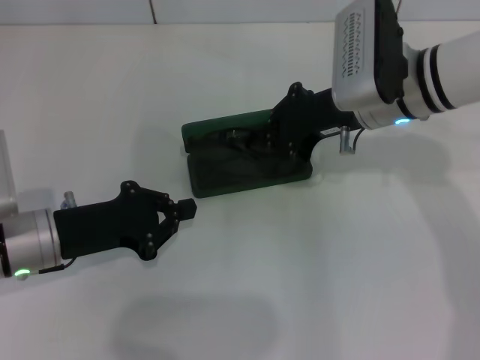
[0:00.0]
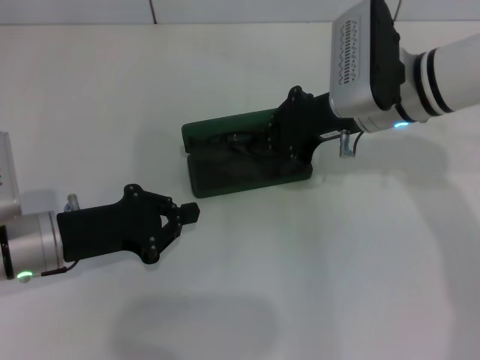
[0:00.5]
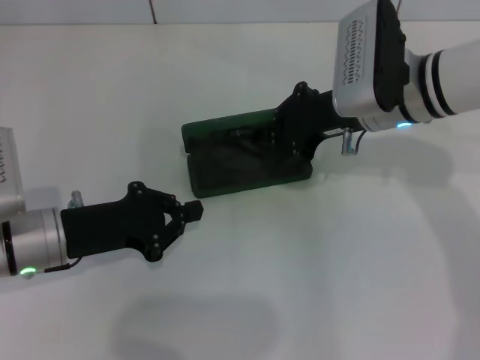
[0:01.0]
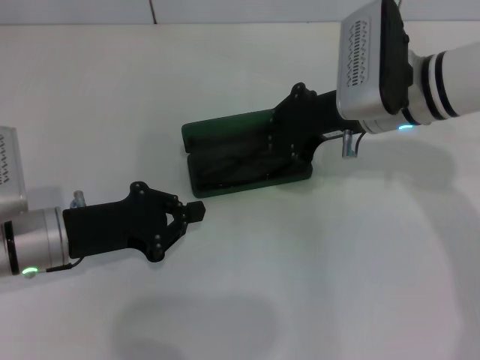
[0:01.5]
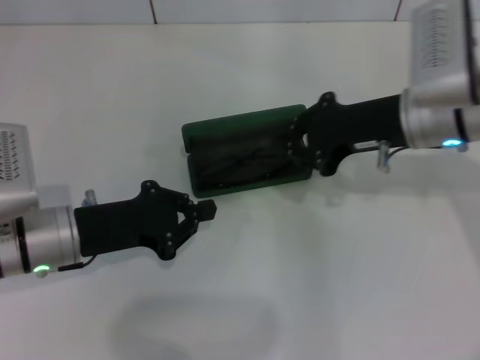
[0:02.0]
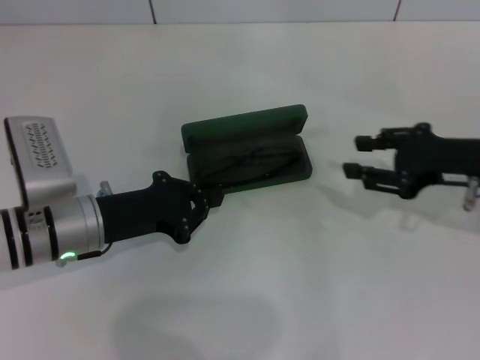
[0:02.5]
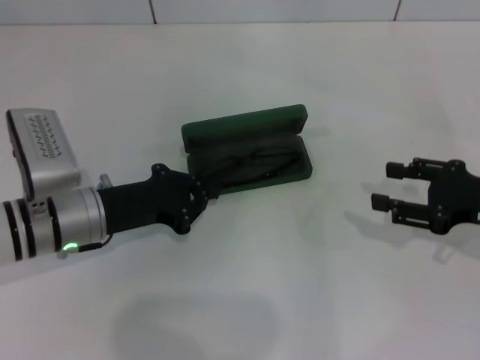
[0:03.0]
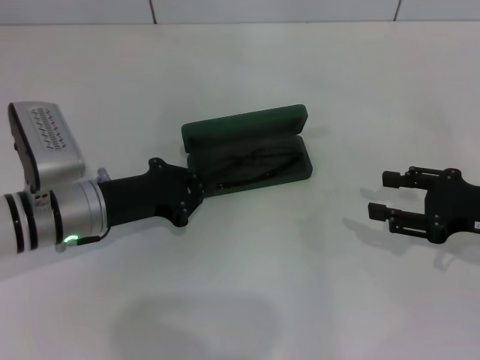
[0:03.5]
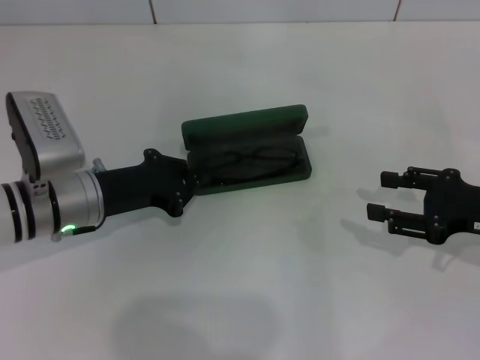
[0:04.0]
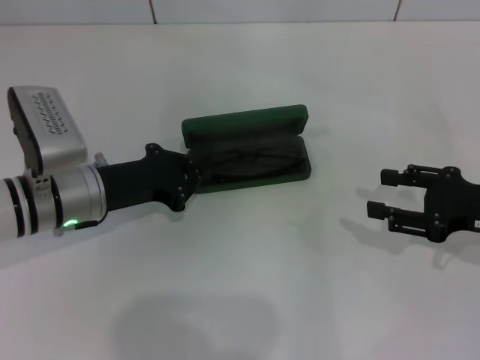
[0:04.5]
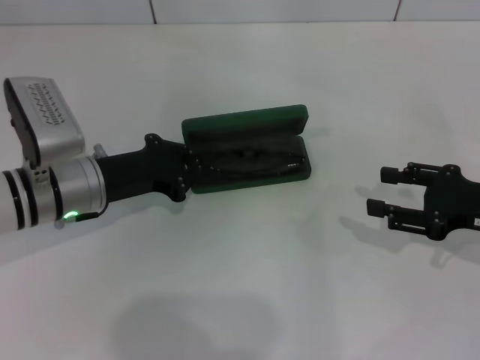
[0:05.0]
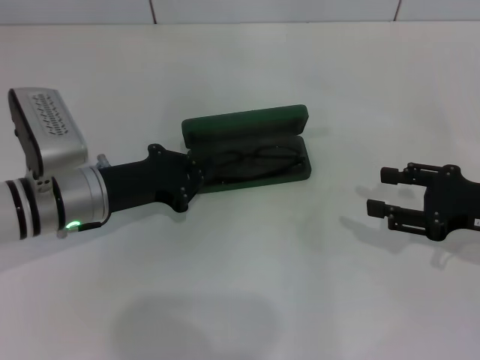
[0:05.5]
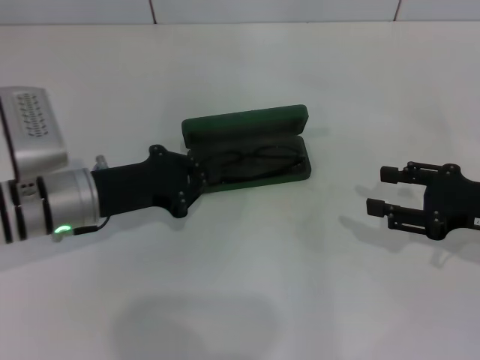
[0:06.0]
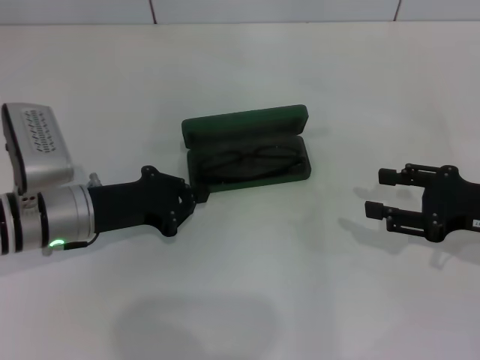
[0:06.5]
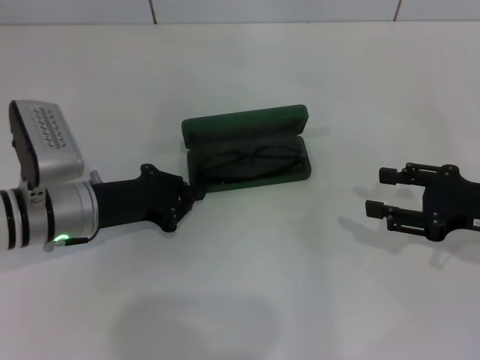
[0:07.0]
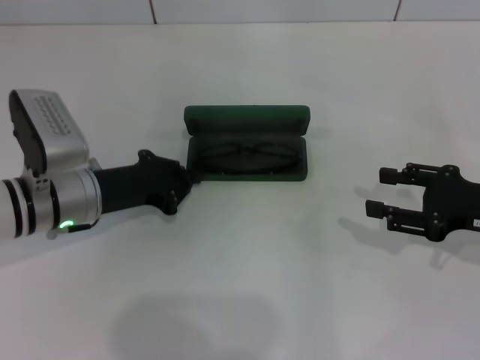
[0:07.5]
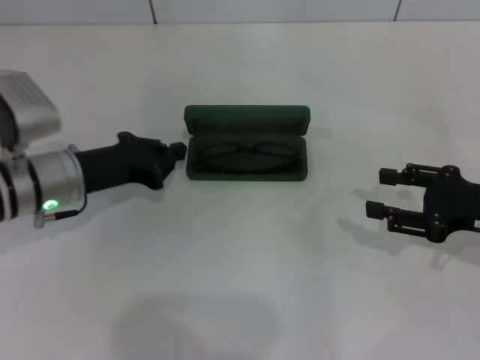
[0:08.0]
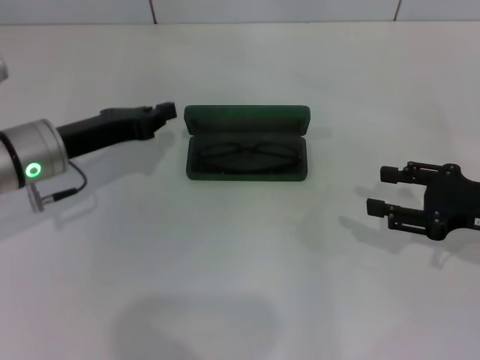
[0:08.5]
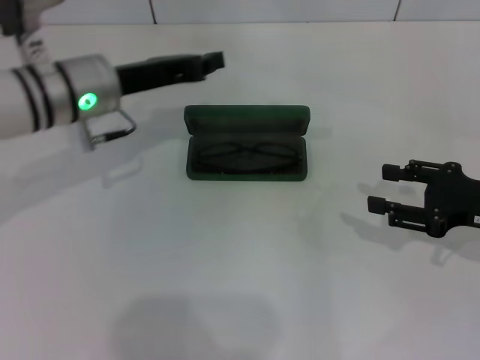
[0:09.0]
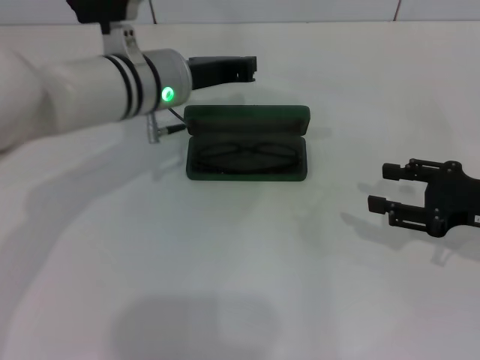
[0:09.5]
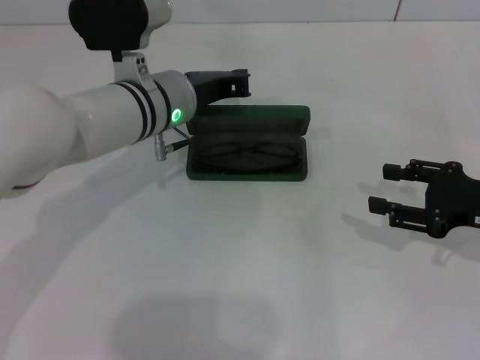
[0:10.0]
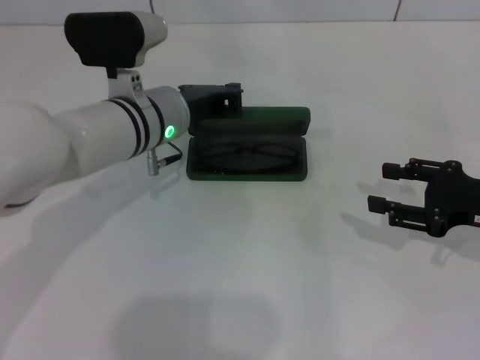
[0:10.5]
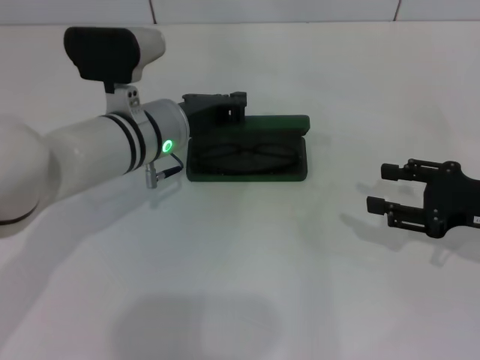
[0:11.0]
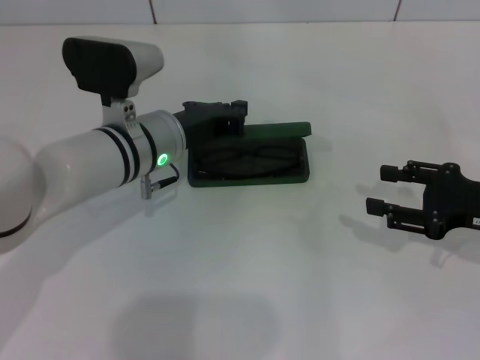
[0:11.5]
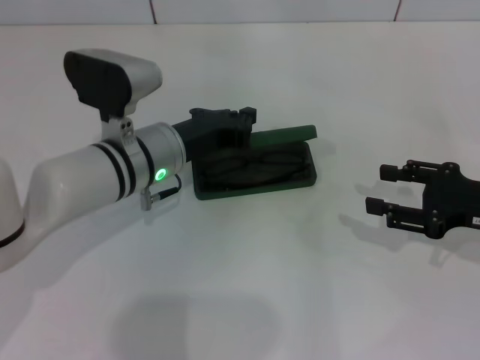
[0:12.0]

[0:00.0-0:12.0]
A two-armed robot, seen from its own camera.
0:00.0 to 0:02.0: The right gripper ends up roughly 5 cm from where it was.
0:02.0 to 0:04.0: The right gripper shifts about 15 cm to the right, backward and downward, and opens up.
0:04.0 to 0:08.0: There are only small adjustments of the grippers.
0:08.0 to 0:10.0: The left gripper goes roughly 15 cm to the right and forward.
0:10.0 to 0:12.0: The left gripper ends up approximately 5 cm from where it was.

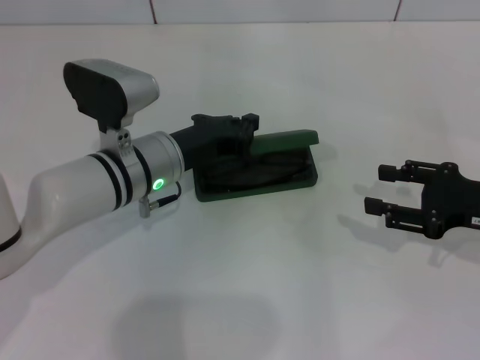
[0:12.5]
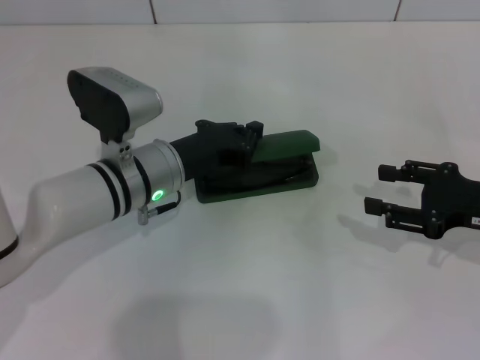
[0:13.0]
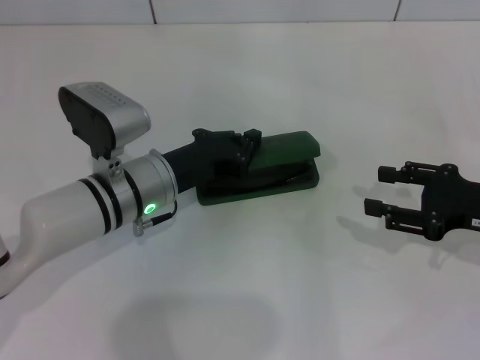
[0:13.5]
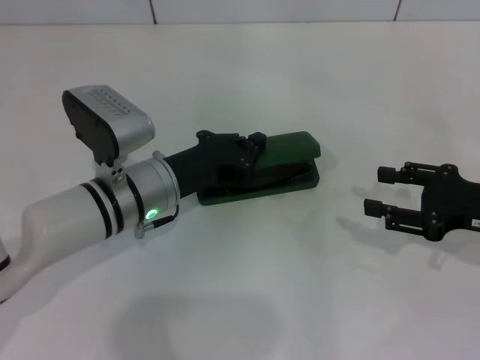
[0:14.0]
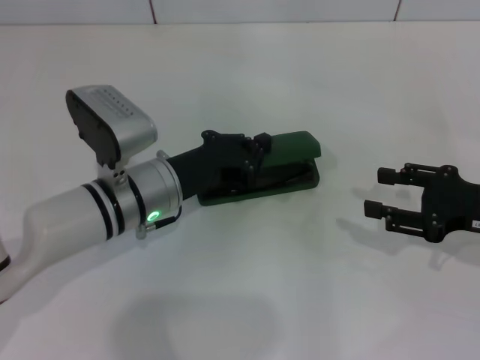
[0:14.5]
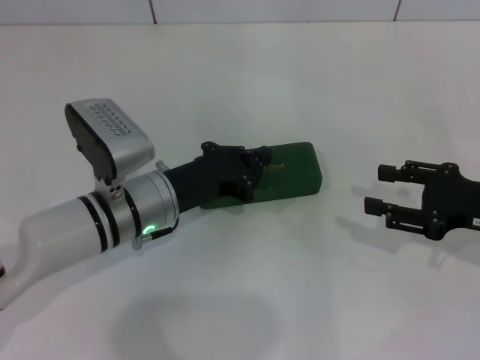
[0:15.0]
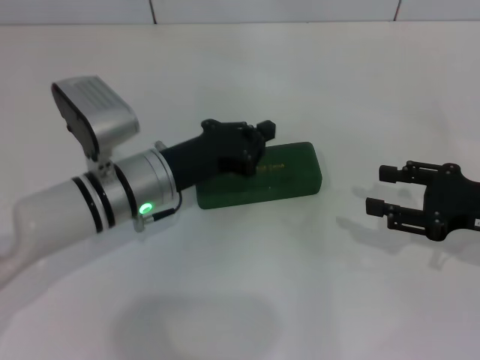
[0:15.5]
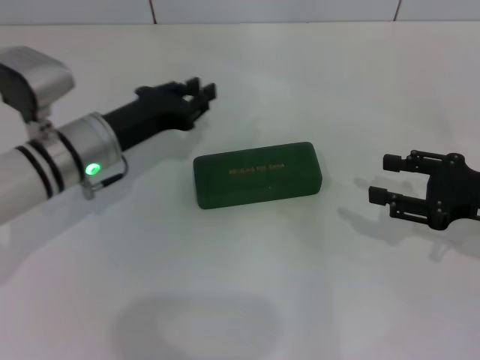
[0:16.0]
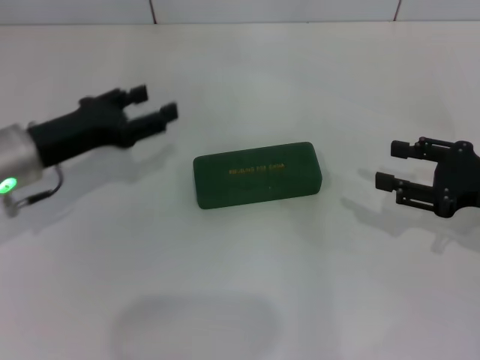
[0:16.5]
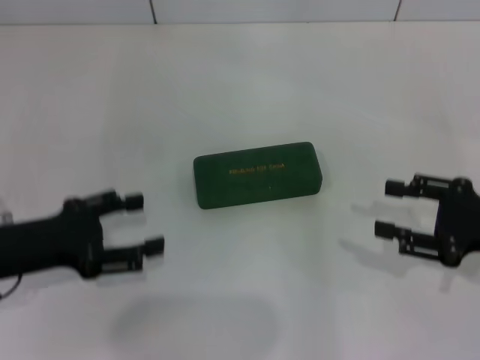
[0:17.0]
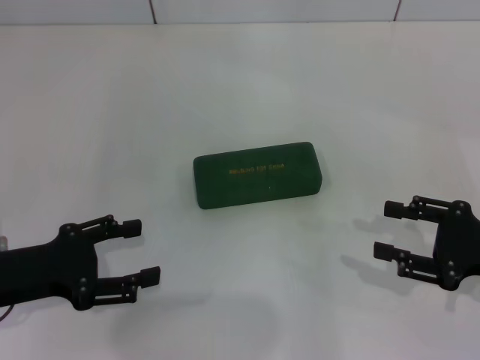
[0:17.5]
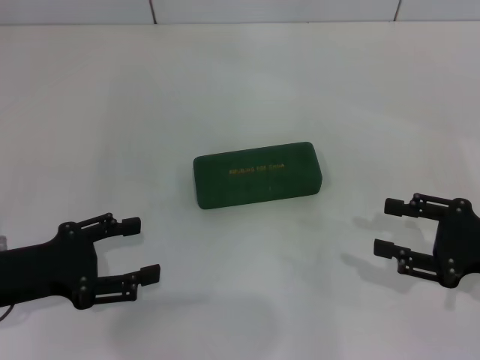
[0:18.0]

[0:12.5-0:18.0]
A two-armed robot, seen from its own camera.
Step, 0:12.5 to 0:15.0: Close the glasses case with your left hand.
0:12.5 to 0:14.5: There are only small adjustments of the grippers.
0:14.5 to 0:16.0: The left gripper goes about 5 cm to the left.
0:16.0 to 0:18.0: The left gripper travels backward and to the left by roughly 15 cm, and opens.

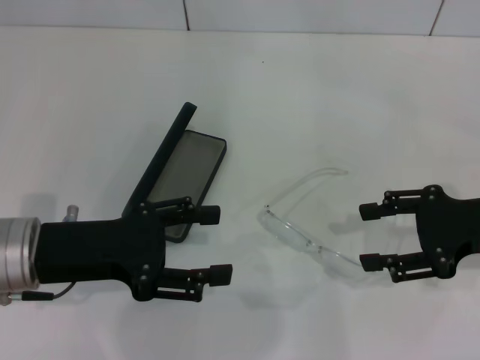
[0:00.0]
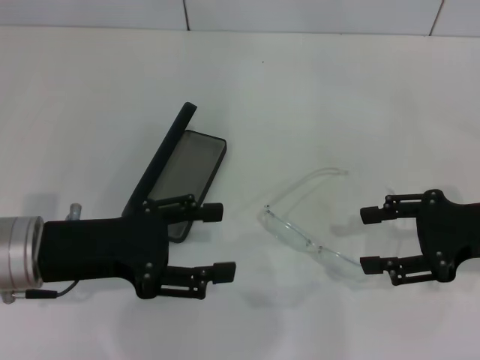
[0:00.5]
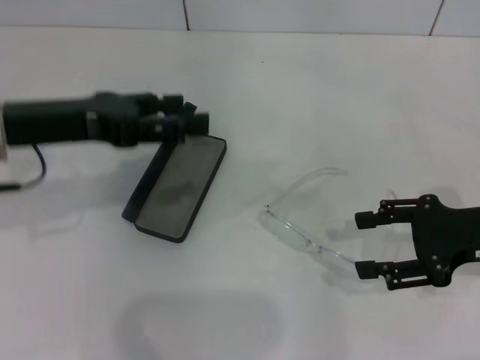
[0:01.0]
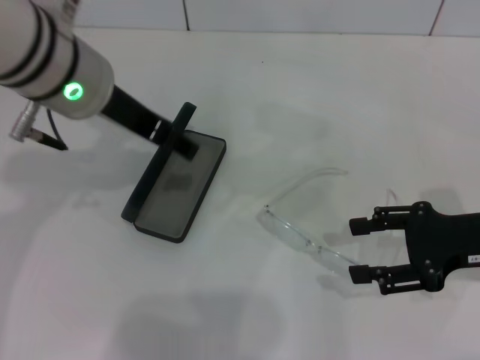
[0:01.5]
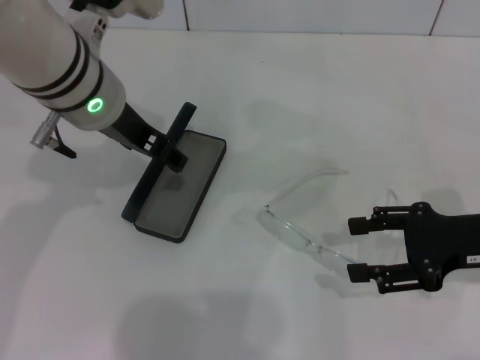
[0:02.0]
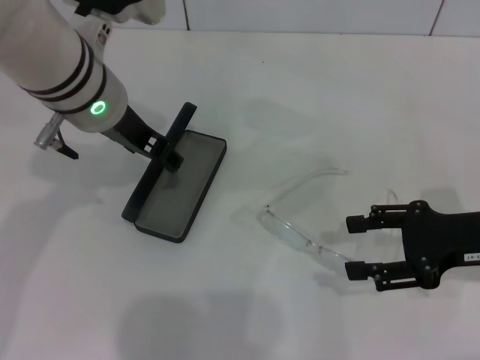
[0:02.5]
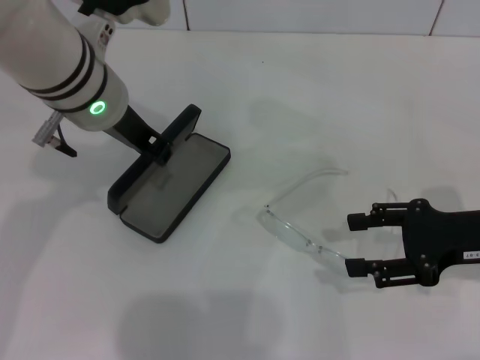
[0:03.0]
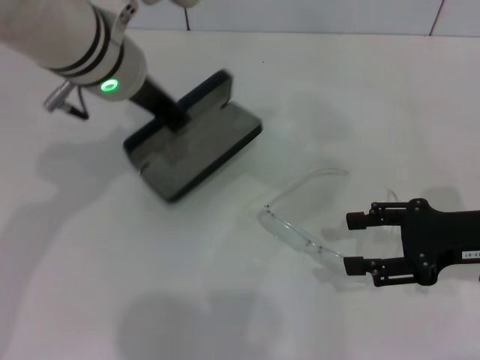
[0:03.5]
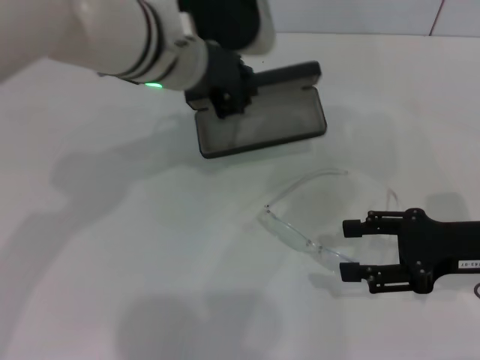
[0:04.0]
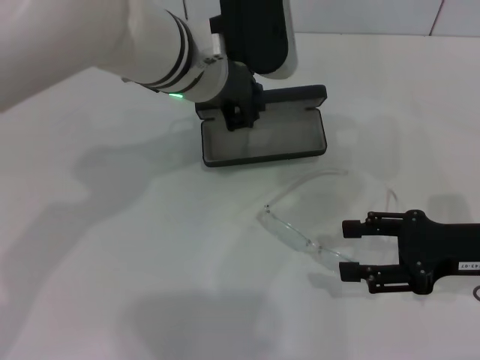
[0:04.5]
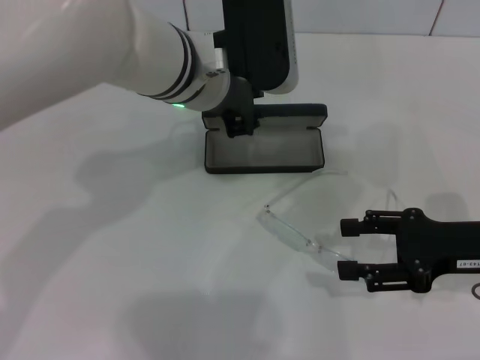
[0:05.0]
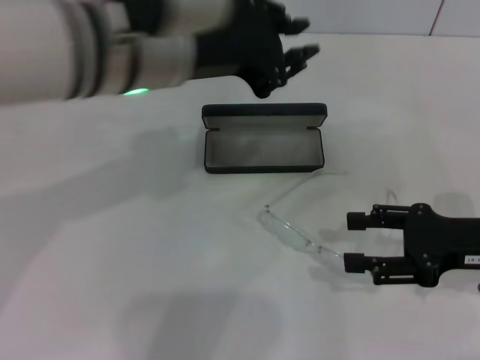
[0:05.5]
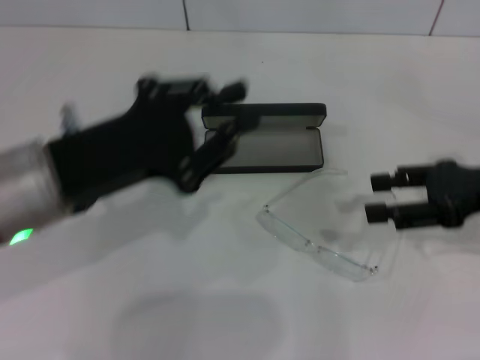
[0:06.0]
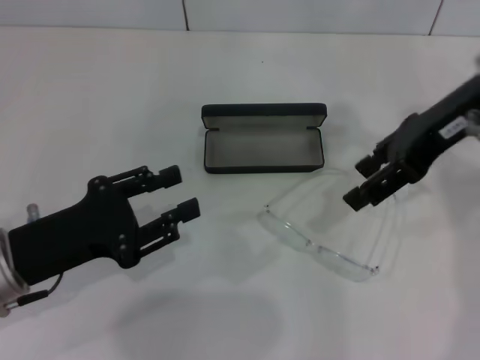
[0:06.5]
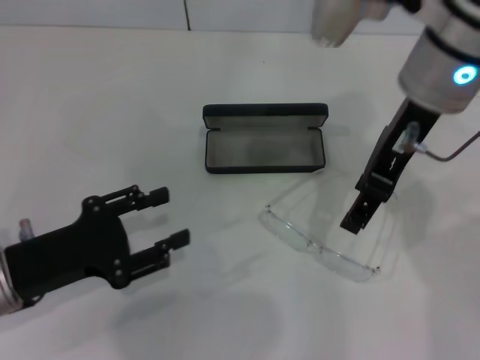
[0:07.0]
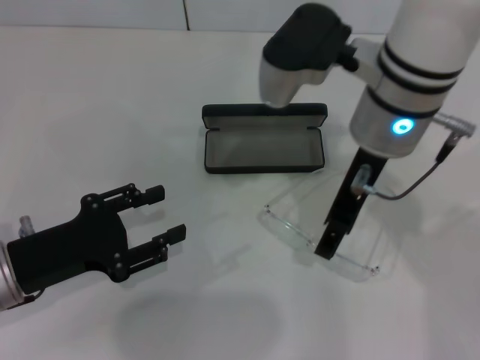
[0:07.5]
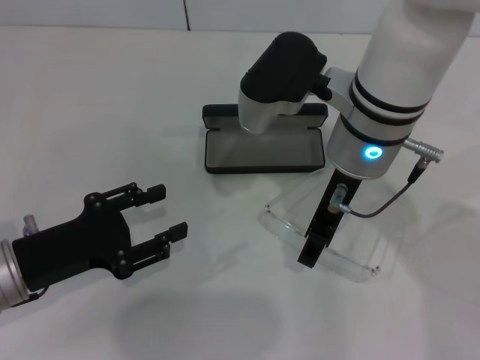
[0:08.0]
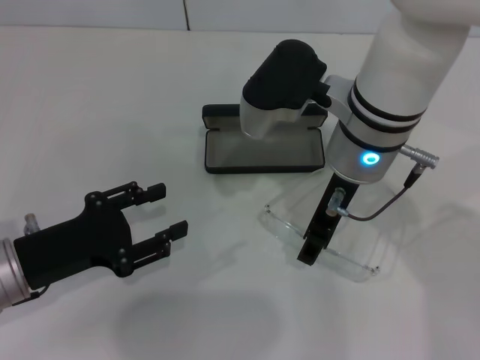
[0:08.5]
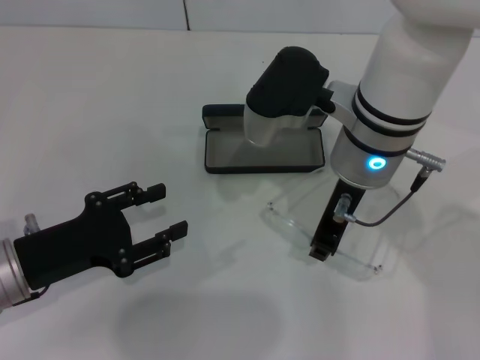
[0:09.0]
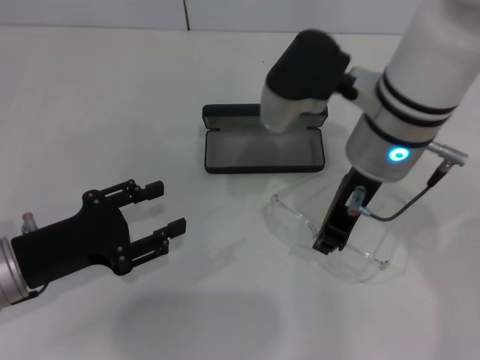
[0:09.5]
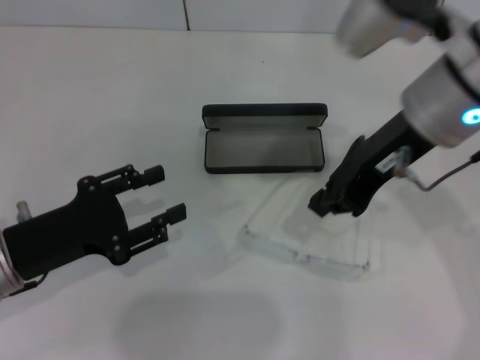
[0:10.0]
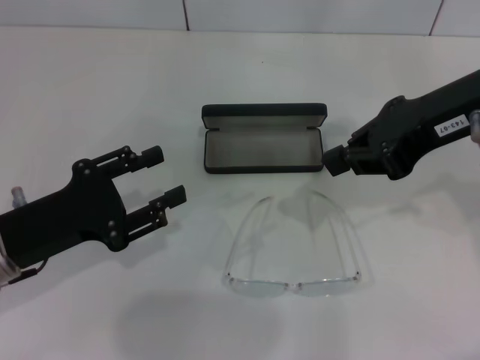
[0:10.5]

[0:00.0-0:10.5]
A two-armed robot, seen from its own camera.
Step, 0:00.0 to 0:03.0: Grab the glasses case with your left hand.
Step, 0:03.5 to 0:04.5: Place the glasses case in the center of the table with your left hand.
0:00.0 to 0:02.0: The left gripper moves forward, to the right and upward, some 15 cm.
0:02.0 to 0:04.0: The left gripper travels to the right by about 5 cm, and closes its fingers.
0:04.0 to 0:06.5: The left gripper heads to the left, backward and downward, covering roughly 25 cm, while the right gripper goes approximately 20 cm upward, forward and to the left.
0:06.5 to 0:08.5: The right gripper shifts roughly 15 cm to the left and downward.
0:08.5 to 0:10.5: The right gripper heads to the right and upward, covering approximately 15 cm, and closes.
